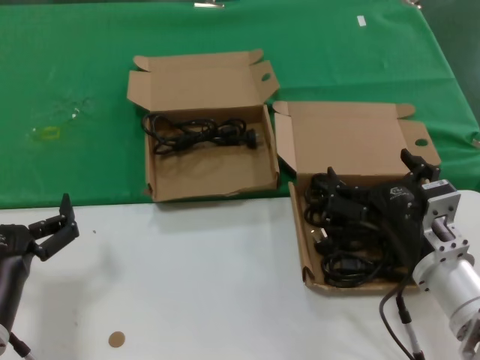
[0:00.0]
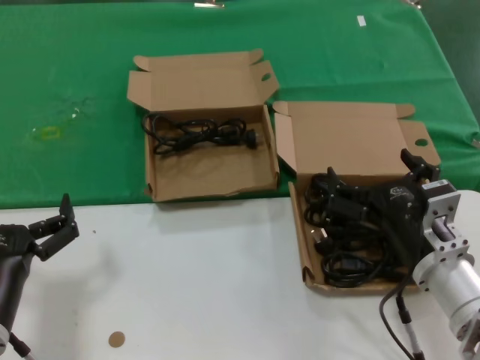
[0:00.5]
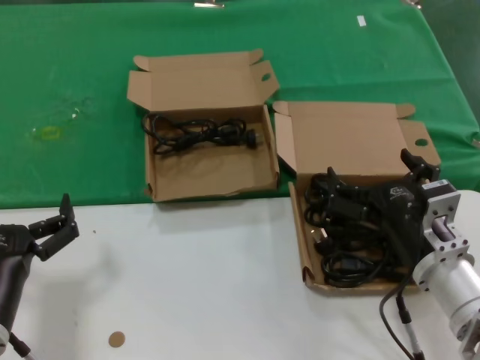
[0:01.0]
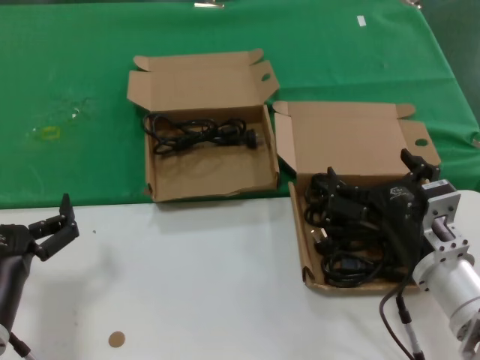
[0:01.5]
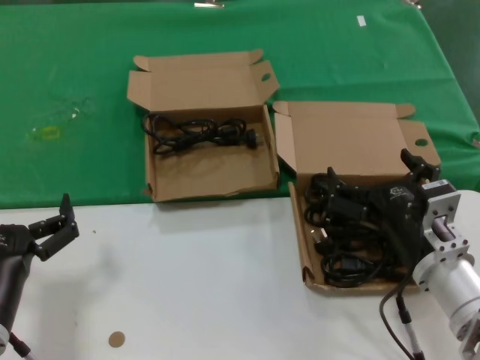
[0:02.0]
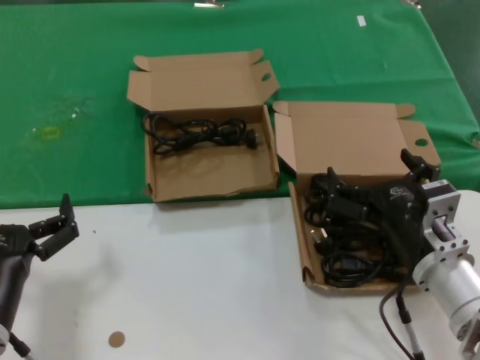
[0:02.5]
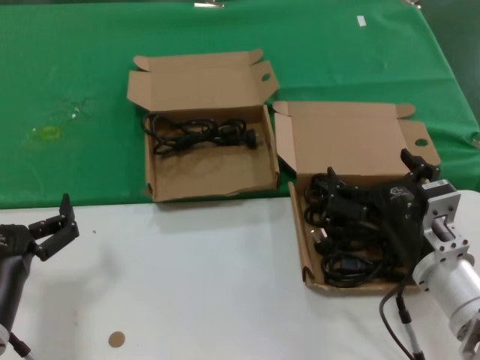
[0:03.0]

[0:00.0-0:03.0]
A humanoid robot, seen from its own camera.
Task of the whole recording: take the parts from the box containing them and put them into an empty box.
0:00.0 to 0:03.0: Both hands stay put.

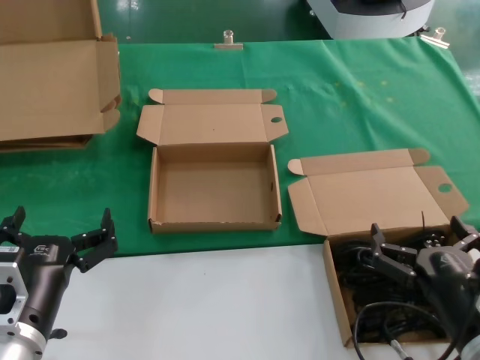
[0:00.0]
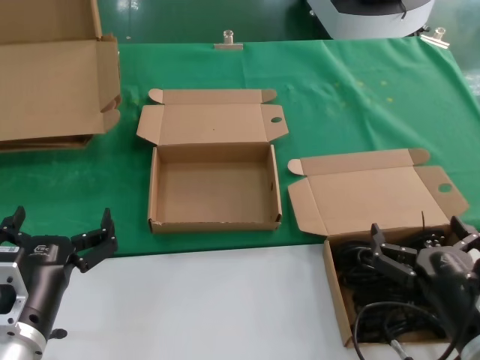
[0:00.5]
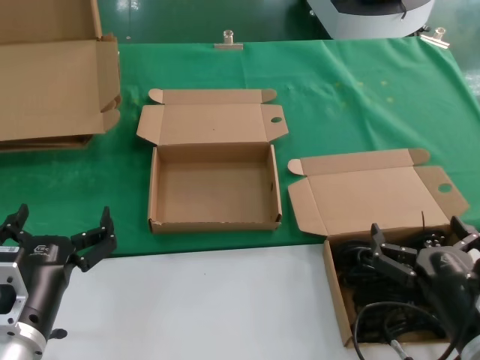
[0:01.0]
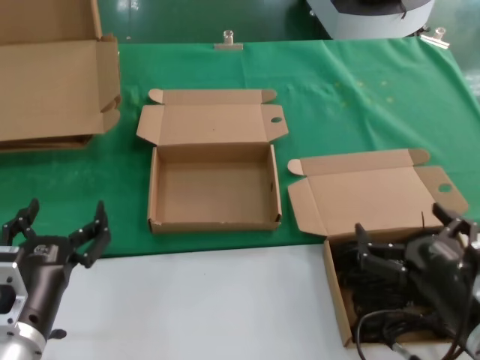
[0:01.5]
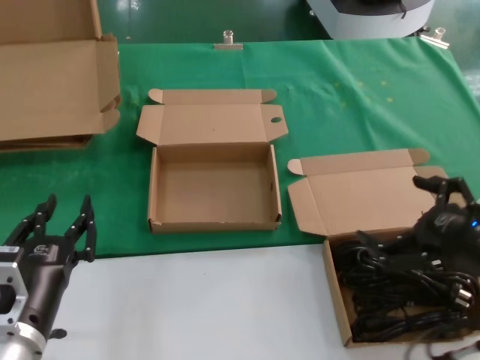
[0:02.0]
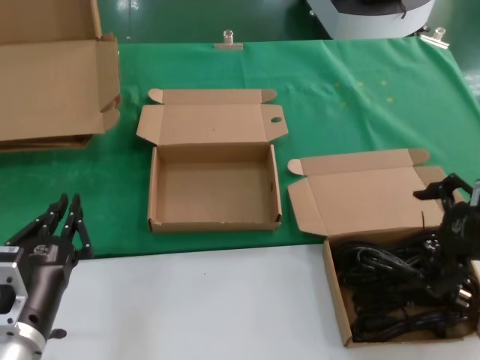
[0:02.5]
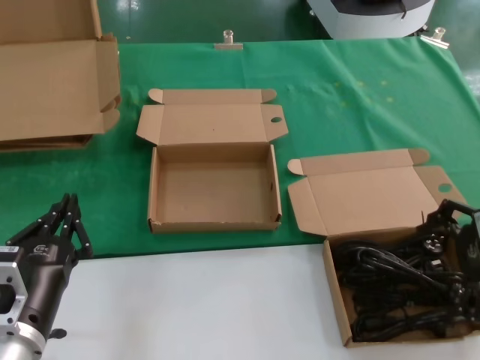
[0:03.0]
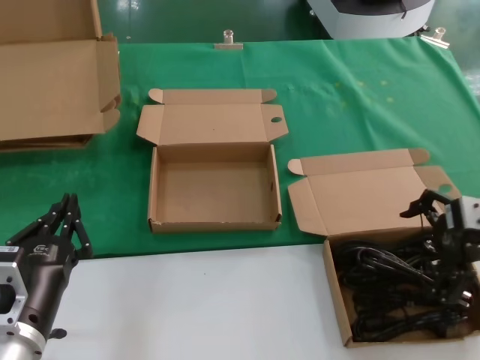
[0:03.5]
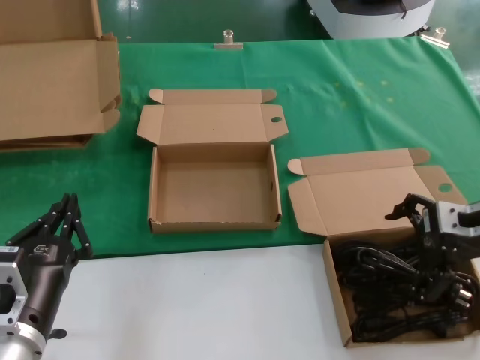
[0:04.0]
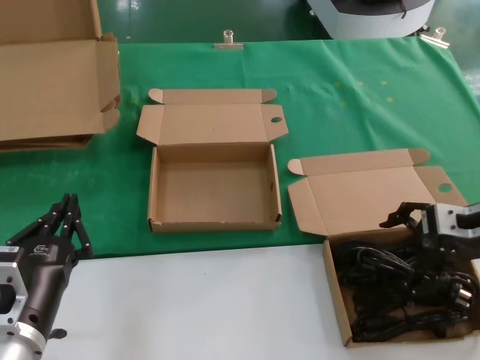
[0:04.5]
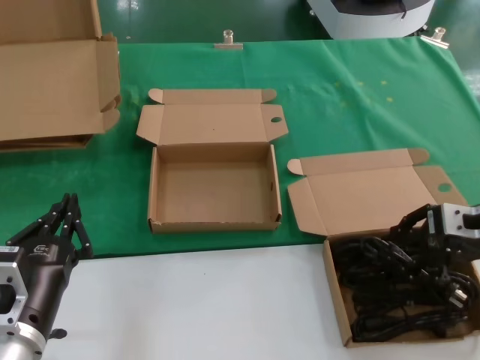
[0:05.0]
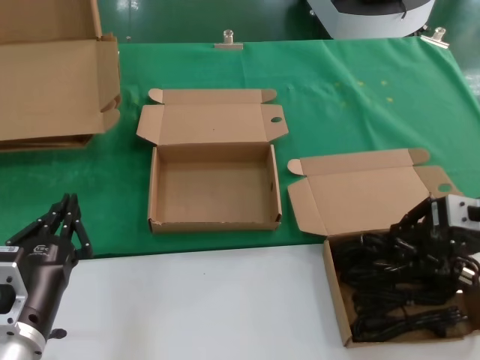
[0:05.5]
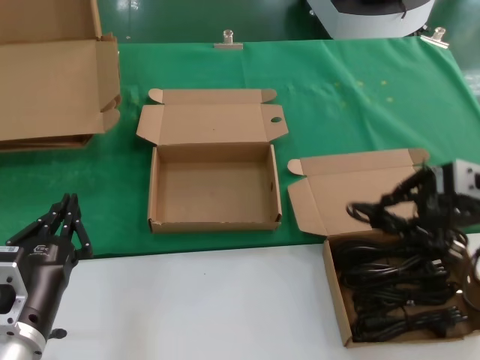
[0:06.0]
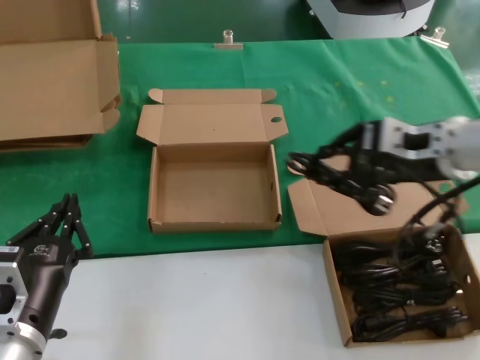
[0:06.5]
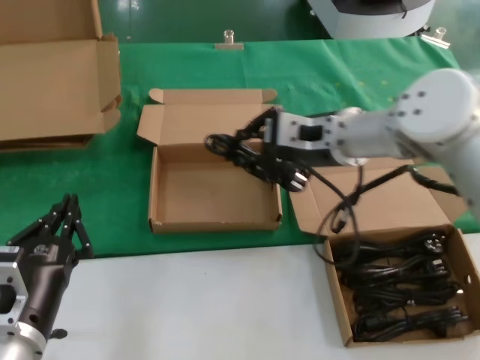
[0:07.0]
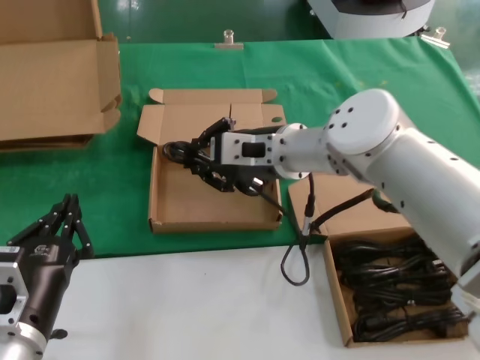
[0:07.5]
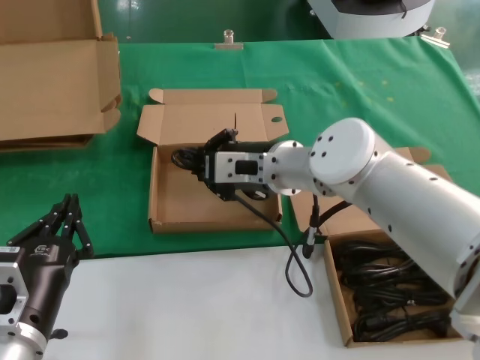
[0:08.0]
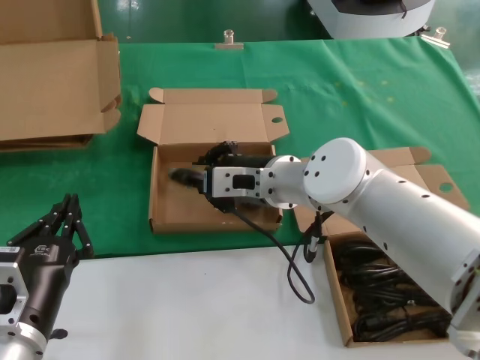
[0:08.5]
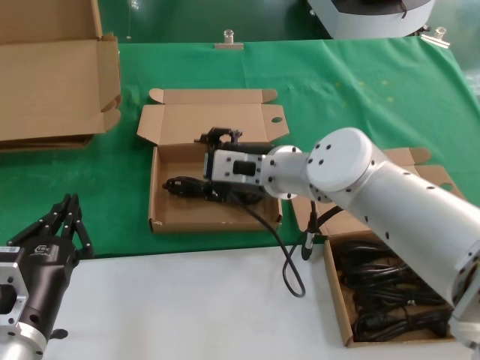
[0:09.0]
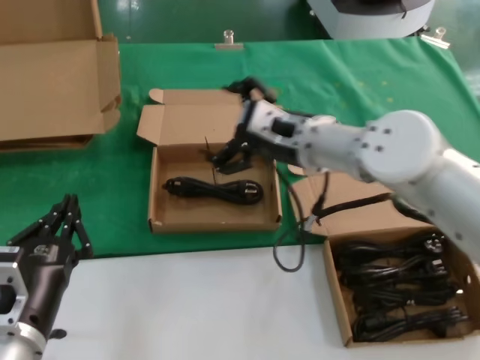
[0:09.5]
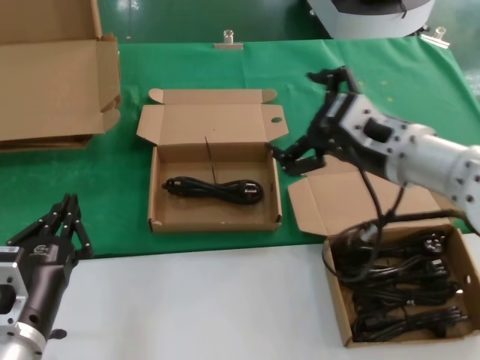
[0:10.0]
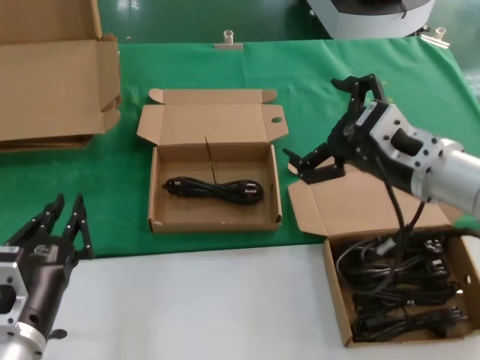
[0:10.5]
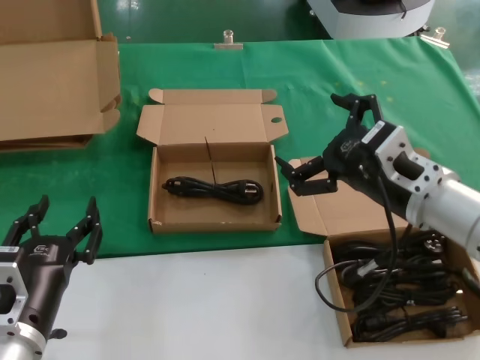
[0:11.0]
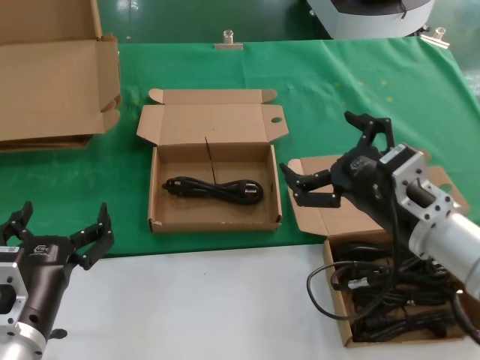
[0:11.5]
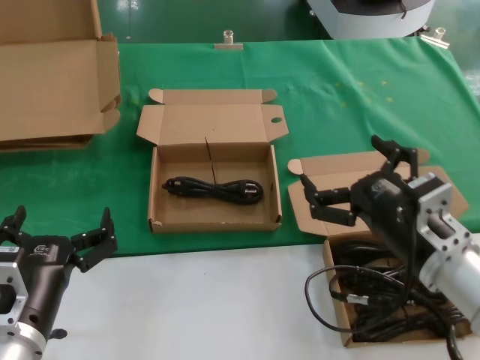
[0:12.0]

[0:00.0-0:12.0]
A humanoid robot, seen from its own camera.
Task of the whole recording: take the parts from the box containing them and put them into an empty box.
Step, 0:00.0 to 0:05.0: Grasp the data cable.
Step, 0:05.5 to 0:08.5: Place the data cable in the another box.
0:00.0 to 0:02.0: The right hand moves upward and to the right, some 10 cm.
0:02.0 to 0:04.0: The right hand heads forward, covering about 15 cm.
0:04.0 to 0:06.0: The right hand shifts some 5 cm upward.
0:06.0 to 0:08.0: The right hand travels to the left by approximately 25 cm.
0:08.0 to 0:10.0: The right hand travels to the right and backward by some 15 cm.
0:10.0 to 0:12.0: The right hand moves downward and backward, about 15 cm.

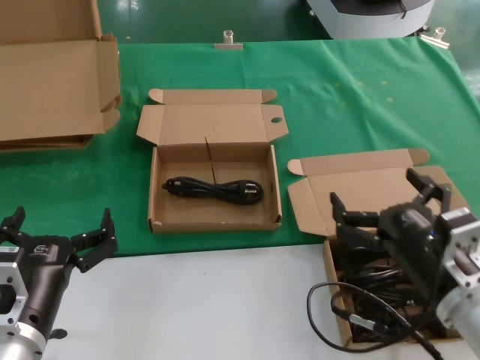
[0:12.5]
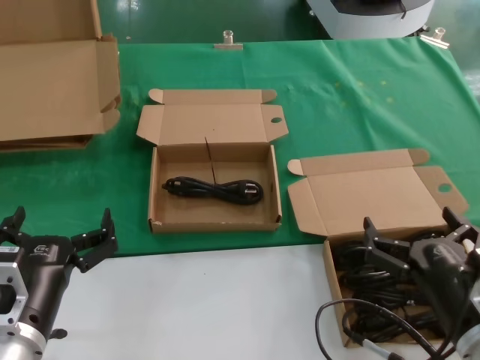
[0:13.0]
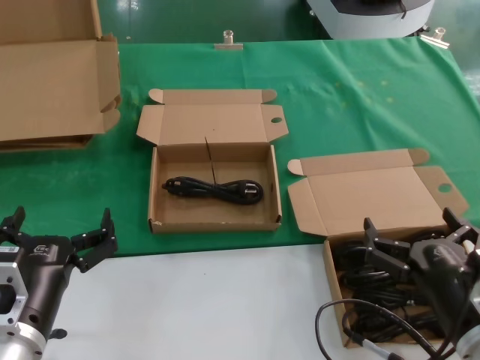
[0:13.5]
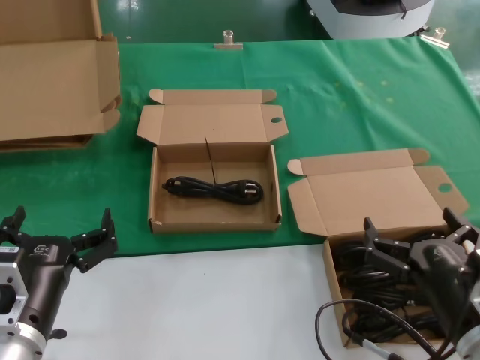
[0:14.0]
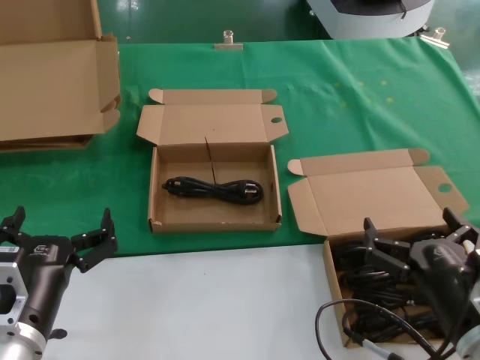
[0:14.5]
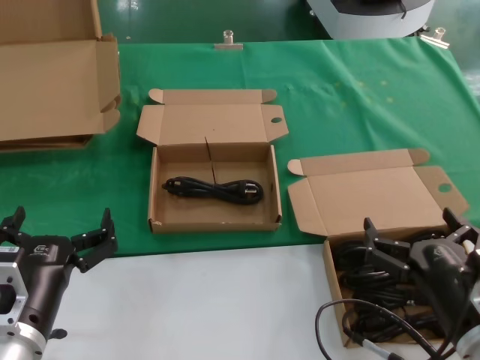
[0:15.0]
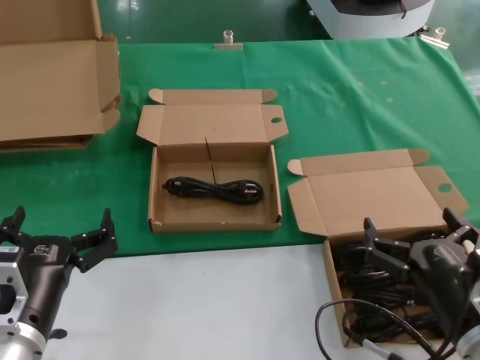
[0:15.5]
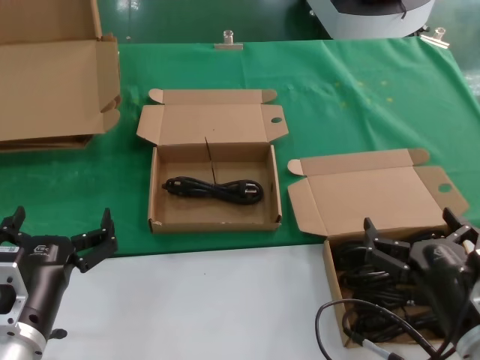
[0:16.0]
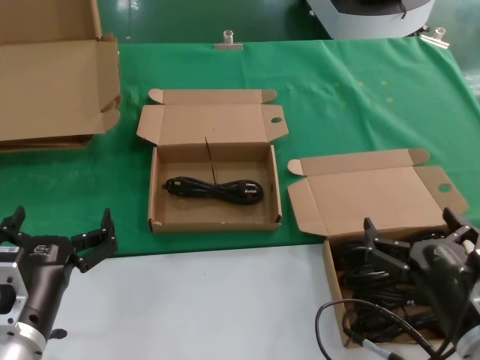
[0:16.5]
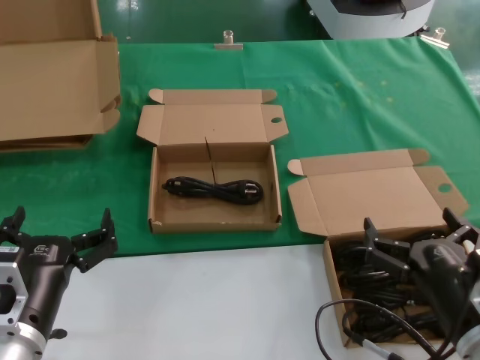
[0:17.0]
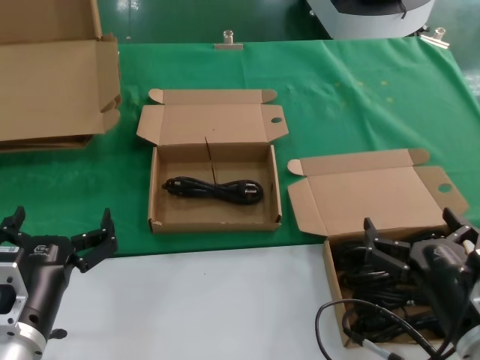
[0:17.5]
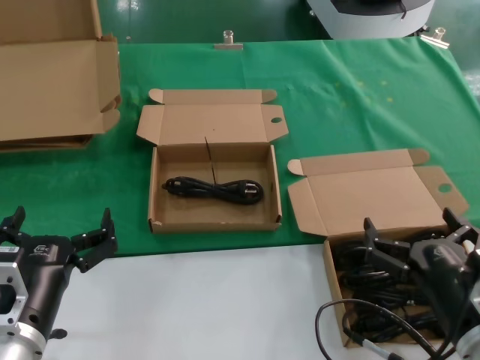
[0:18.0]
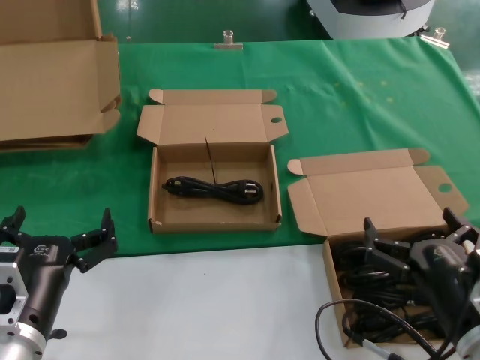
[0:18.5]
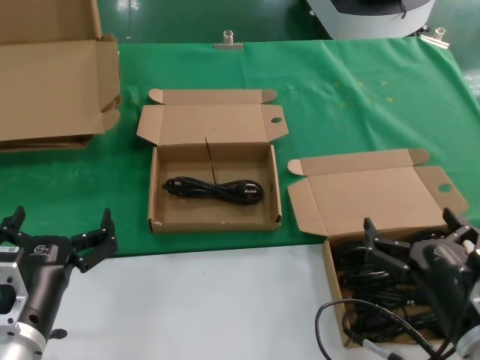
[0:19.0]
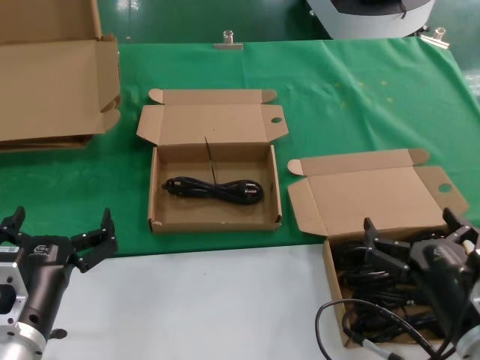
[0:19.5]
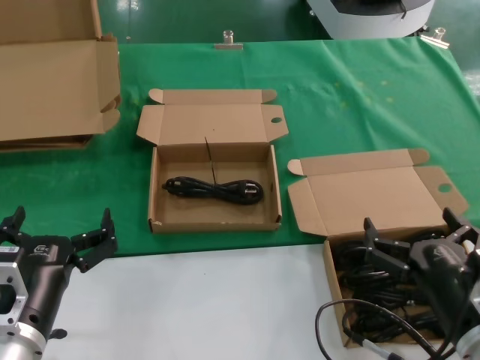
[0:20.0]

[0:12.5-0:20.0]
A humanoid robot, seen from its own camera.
Task of the whole recording: take the parts from the box containing them and put them into an empty box.
0:12.5 to 0:14.5: The right hand shifts by approximately 5 cm.
0:14.5 to 0:20.0: Neither hand changes place.
